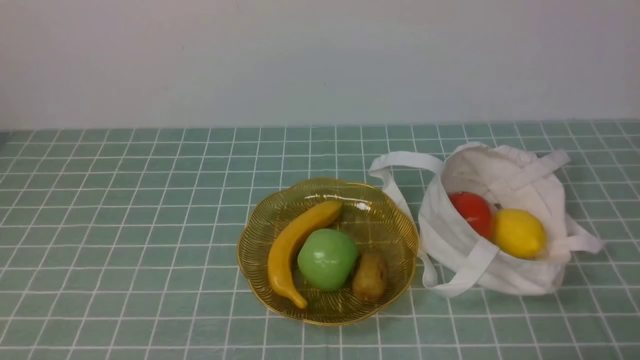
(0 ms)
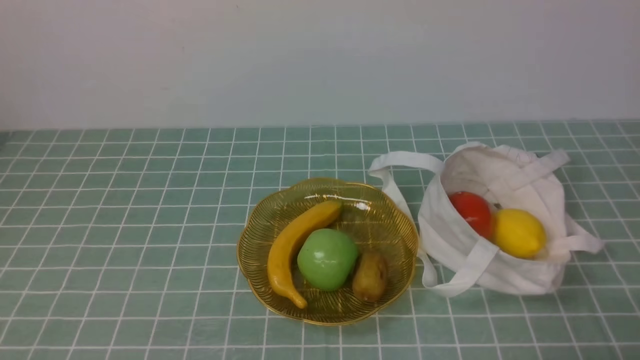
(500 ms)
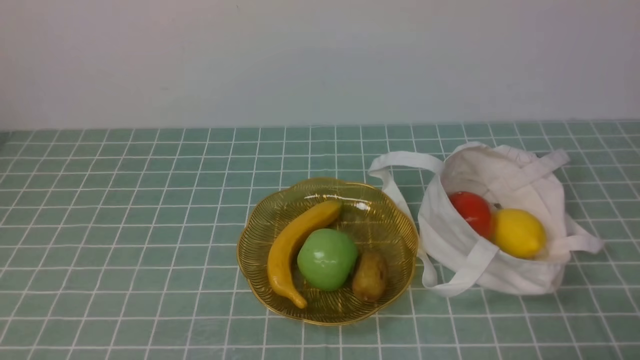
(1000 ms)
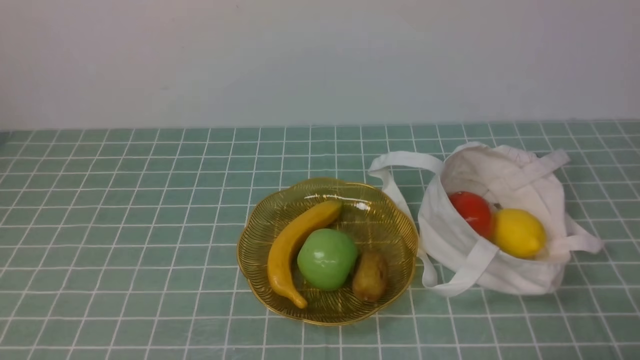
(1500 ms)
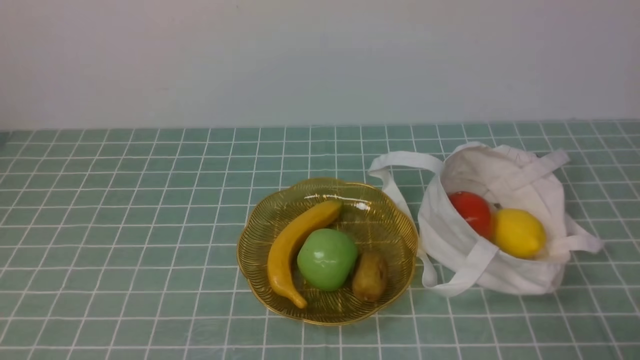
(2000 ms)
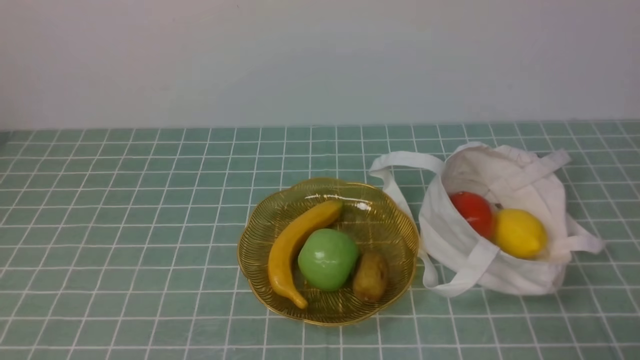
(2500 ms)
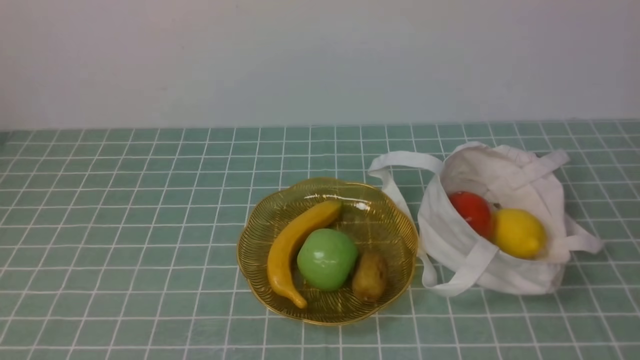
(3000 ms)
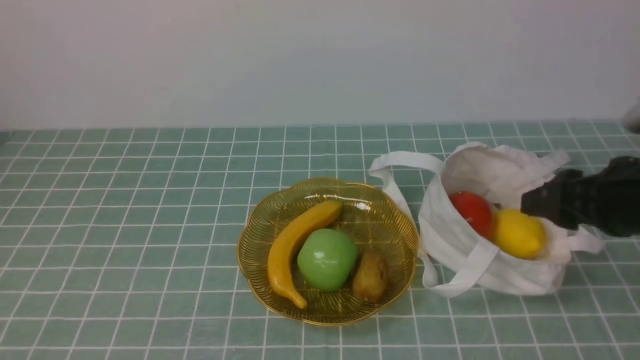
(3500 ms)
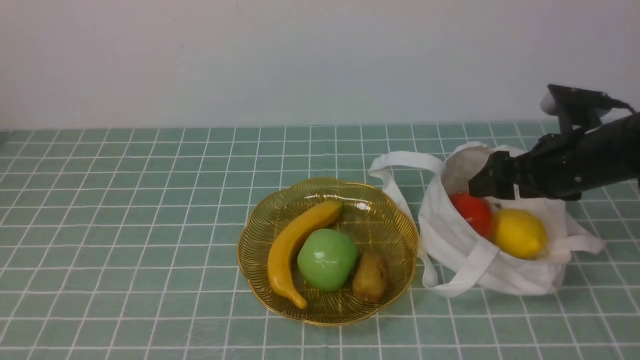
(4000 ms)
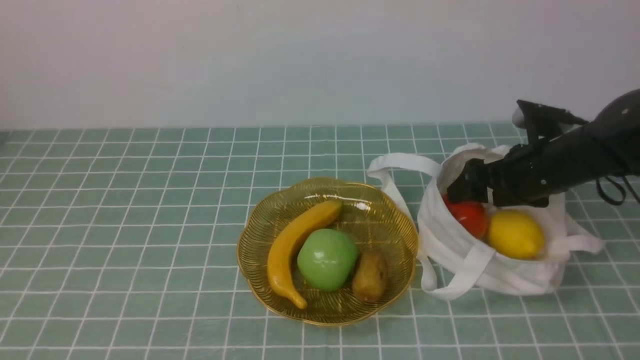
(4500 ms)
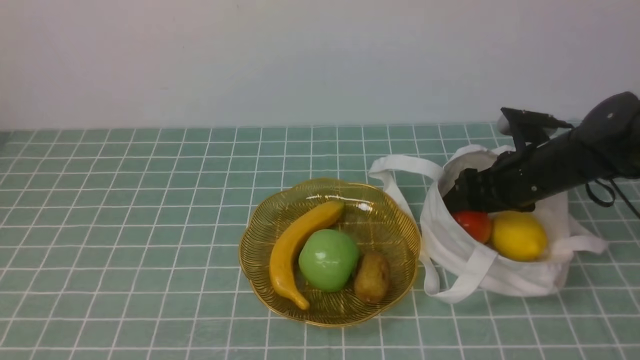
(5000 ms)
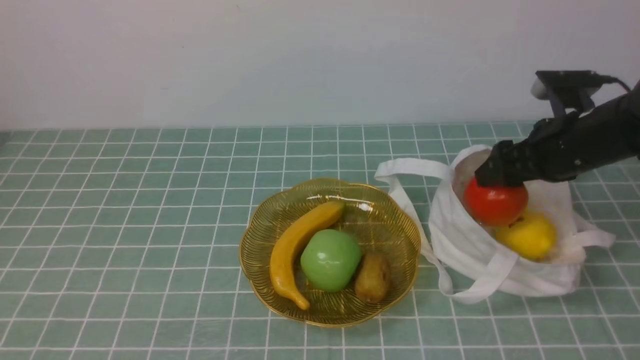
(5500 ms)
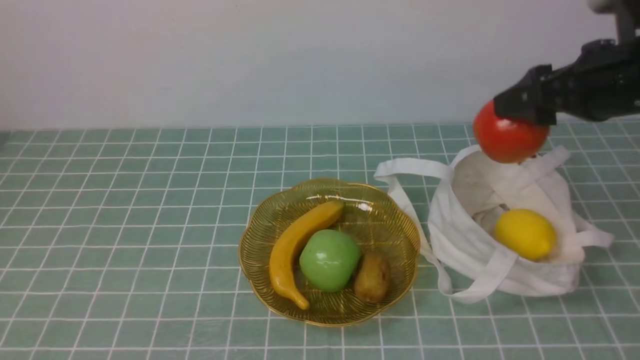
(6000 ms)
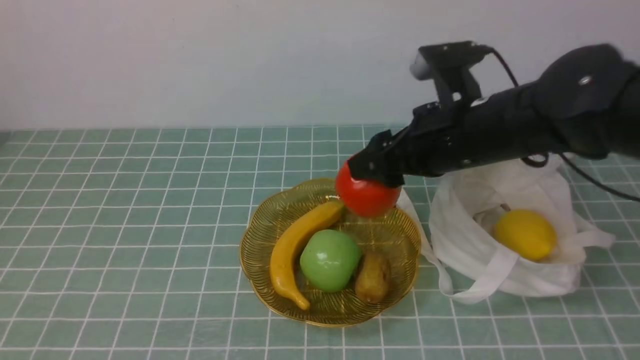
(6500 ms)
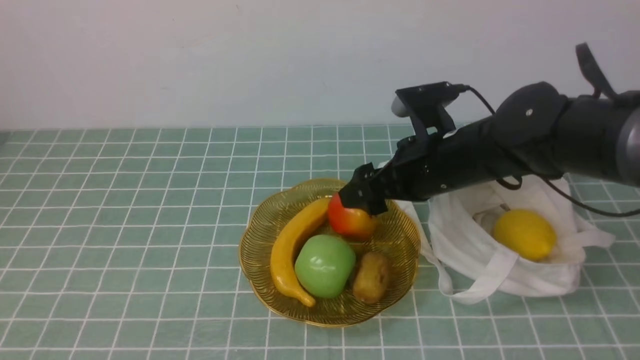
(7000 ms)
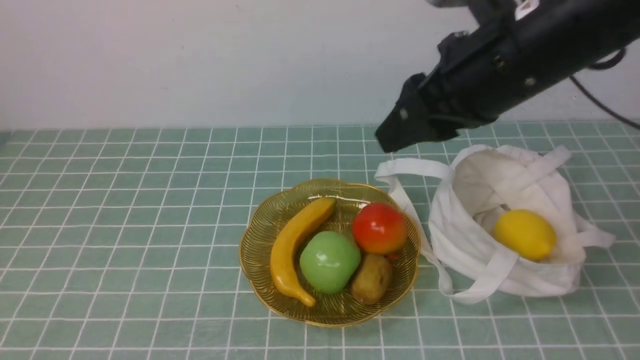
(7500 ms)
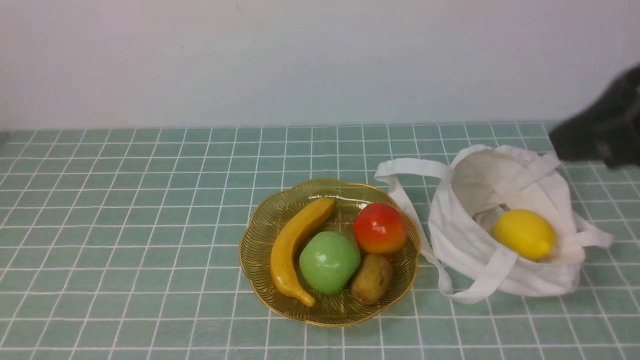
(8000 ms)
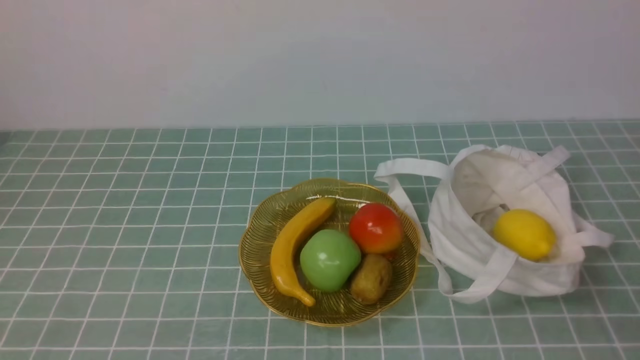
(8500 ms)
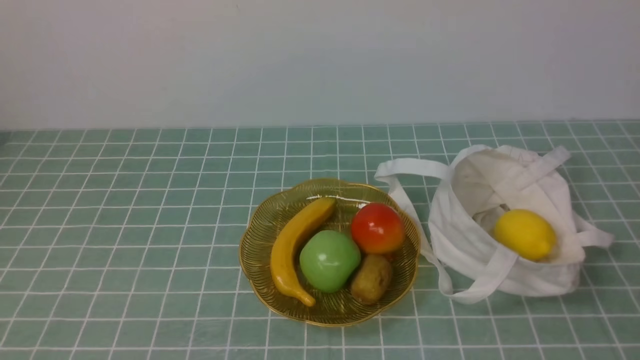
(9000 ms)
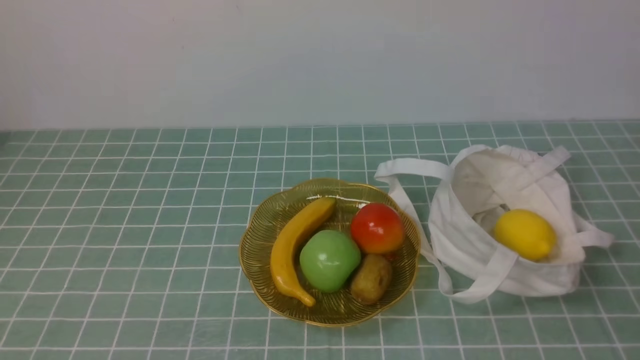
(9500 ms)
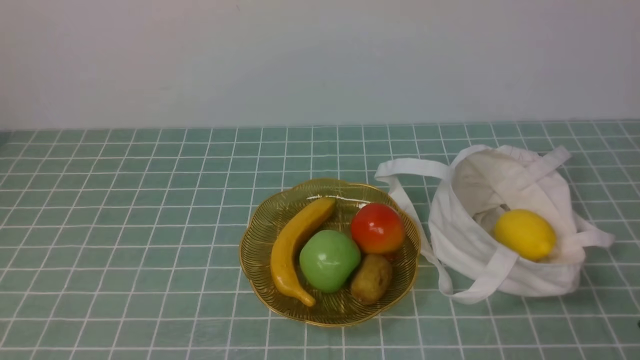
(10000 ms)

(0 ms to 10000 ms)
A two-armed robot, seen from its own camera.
Step, 0 ms - 5000 ms: use the right arm to grab a pomegranate from the bag.
Step, 5500 ms - 7000 ms: use the right arm to put the pomegranate into the empty plate on the left.
2000 ms - 4000 ms: The right gripper goes roughly 30 cm forward, and opens its fingers.
4000 ms - 6000 ms: The right gripper shifts roughly 10 cm upward.
6000 ms - 8000 ms: The right gripper is displaced backward and upward by roughly 20 cm, and closes.
8000 ms - 10000 ms: The right gripper shifts approximately 25 cm downward and backward.

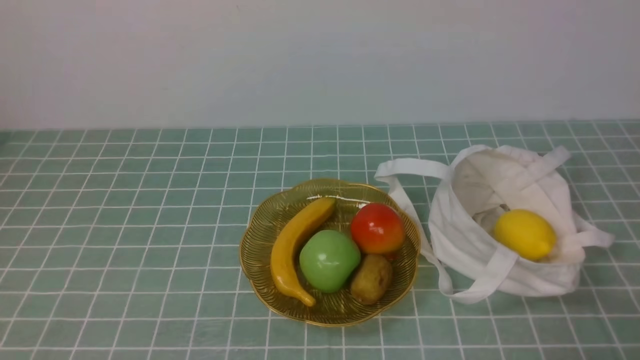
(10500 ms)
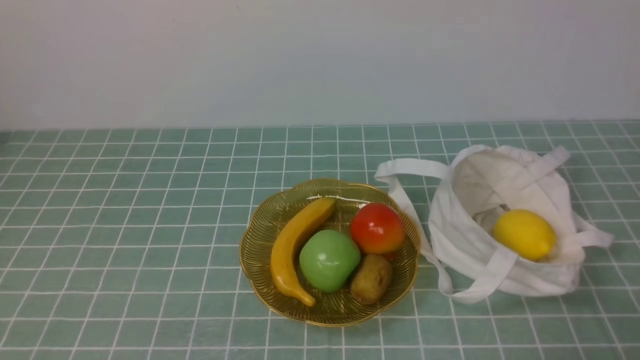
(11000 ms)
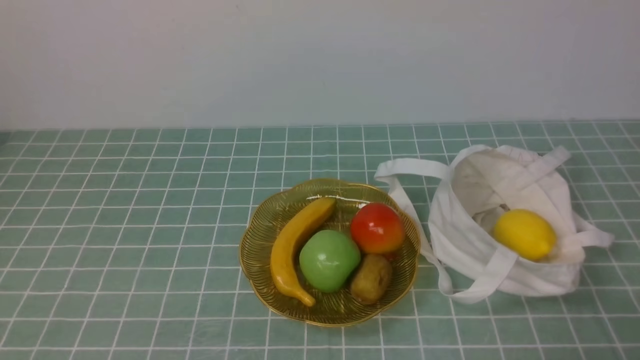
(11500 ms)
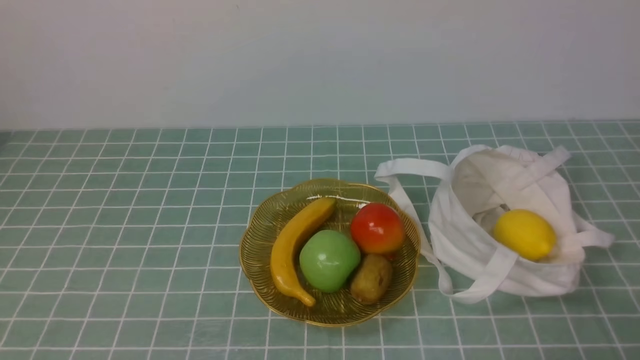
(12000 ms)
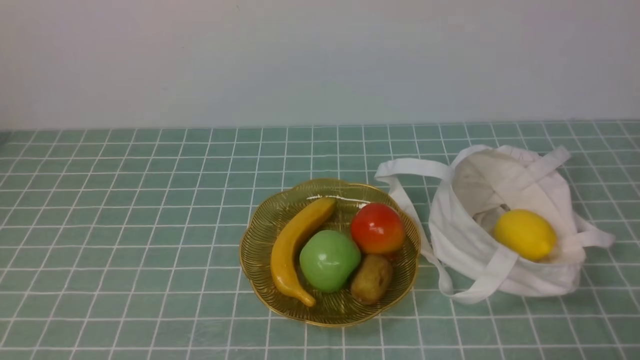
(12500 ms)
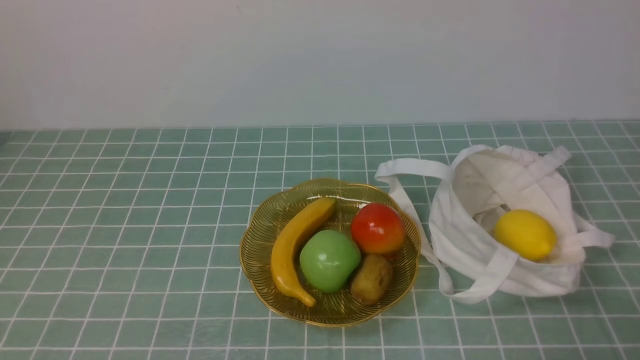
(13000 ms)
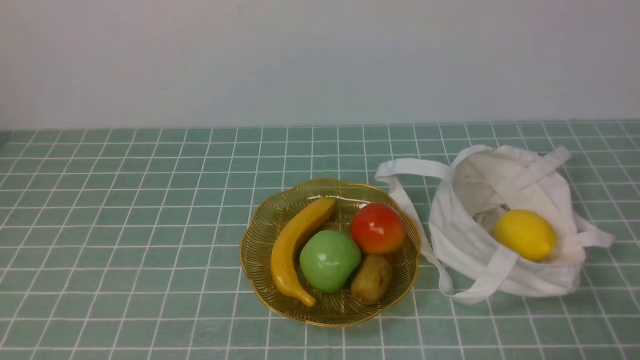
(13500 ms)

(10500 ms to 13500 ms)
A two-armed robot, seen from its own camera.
10500 ms - 13500 ms: Both grippers stay about where they are.
